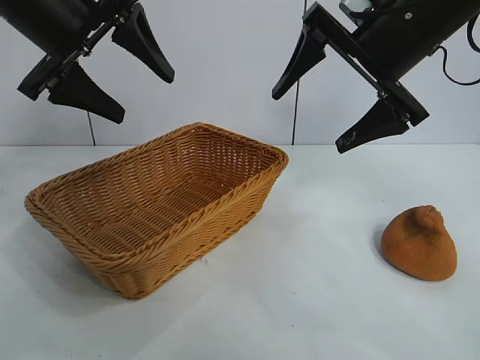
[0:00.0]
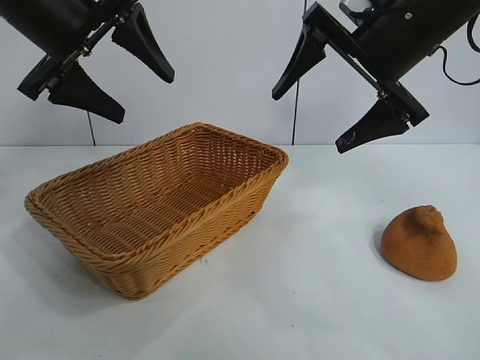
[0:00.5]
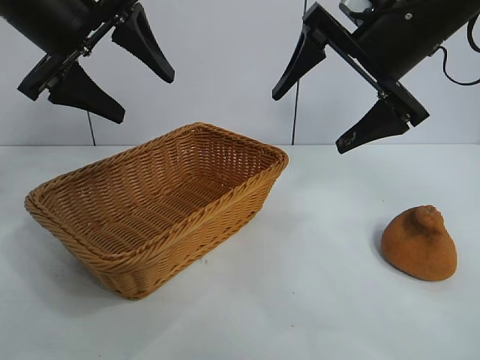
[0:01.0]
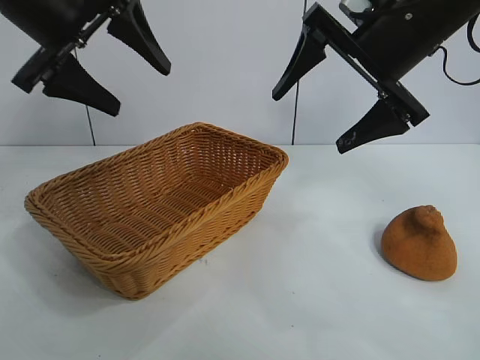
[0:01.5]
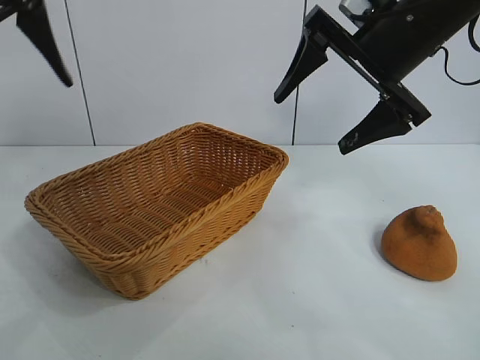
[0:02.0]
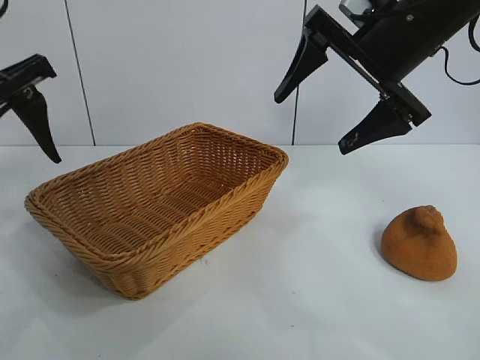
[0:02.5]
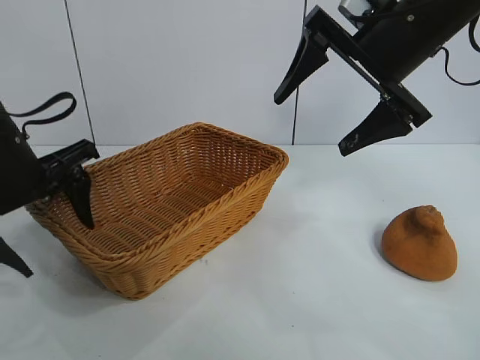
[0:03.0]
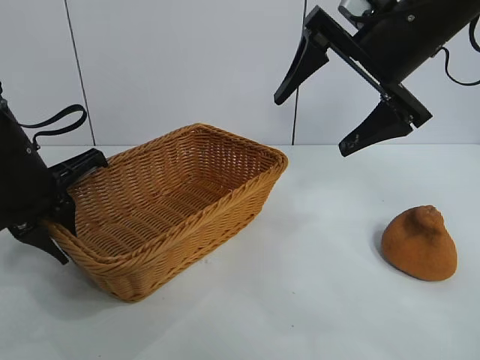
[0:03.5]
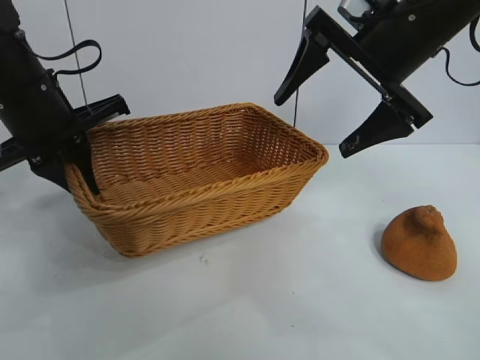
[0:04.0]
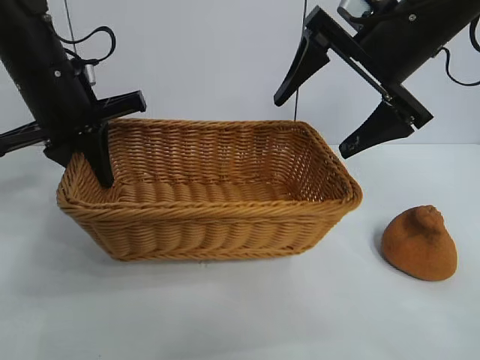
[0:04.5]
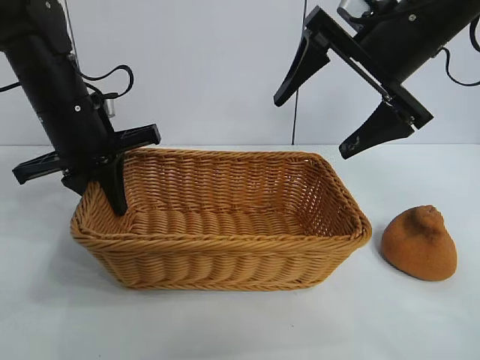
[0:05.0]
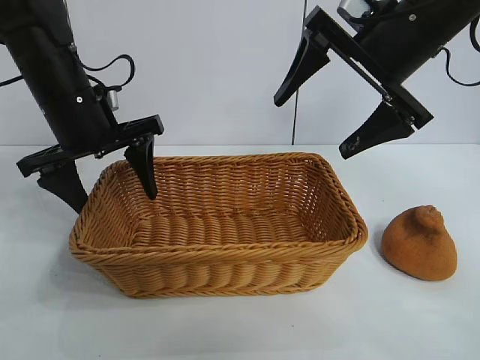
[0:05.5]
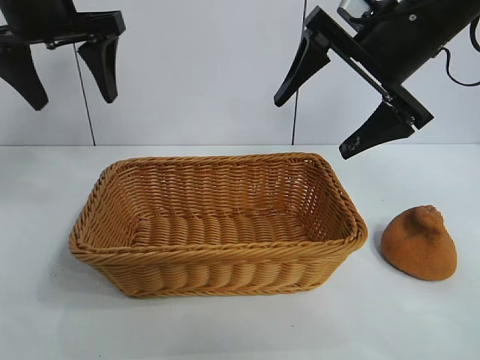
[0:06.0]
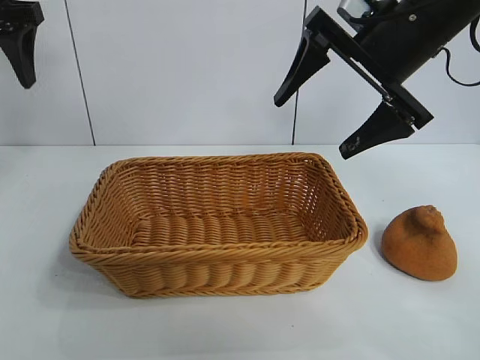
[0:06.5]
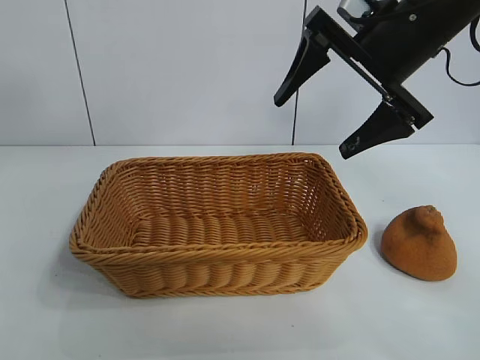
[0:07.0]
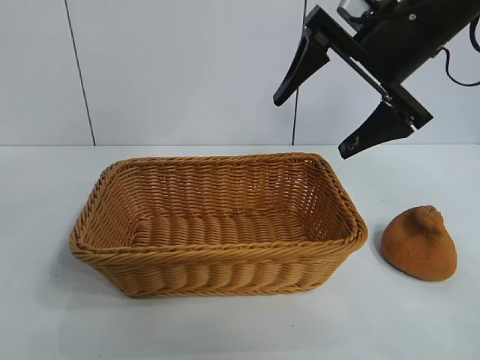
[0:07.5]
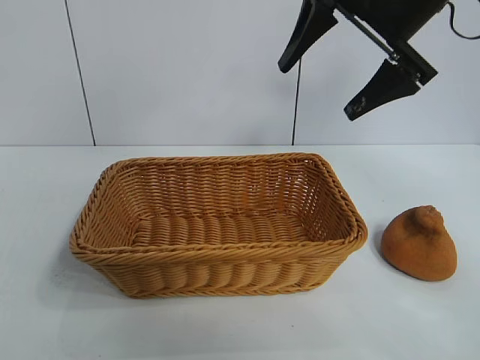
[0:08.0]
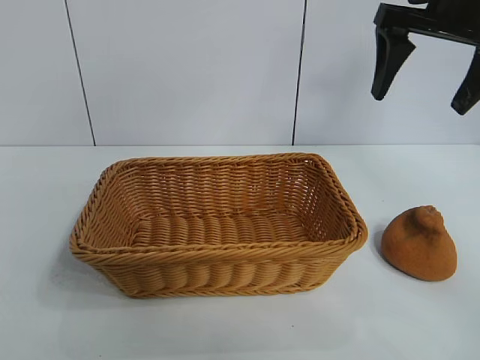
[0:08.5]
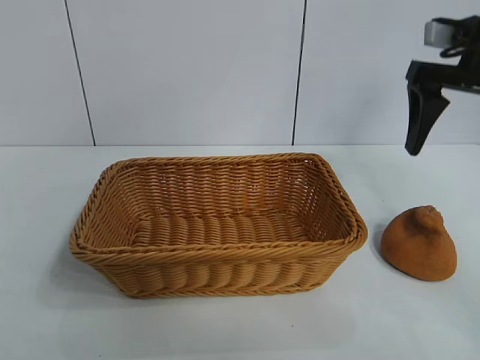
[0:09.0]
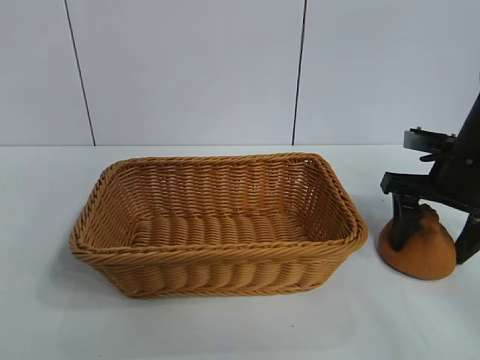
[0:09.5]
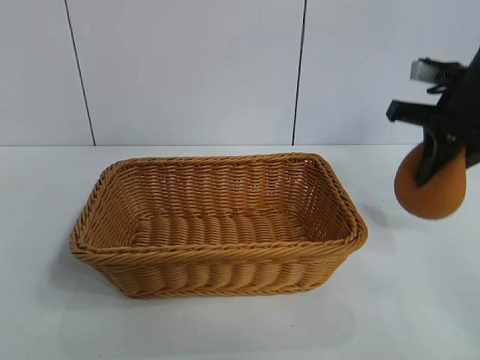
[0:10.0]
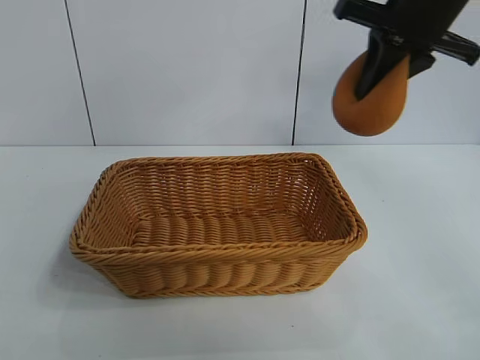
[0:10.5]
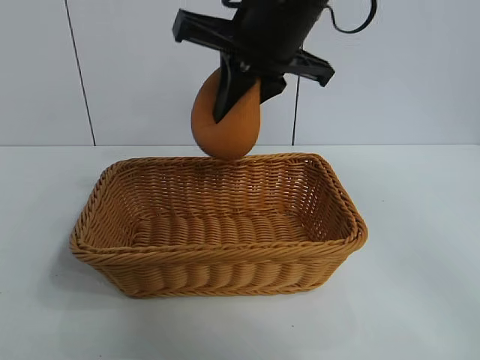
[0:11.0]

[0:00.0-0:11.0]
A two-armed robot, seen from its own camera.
Task of the whole recording: pick up the orange and put it into the basket.
Step, 0:01.0 to 0:03.5: Grasp the basket with left gripper.
Step, 0:04.0 to 0:05.0: Place the basket in the center of view with left gripper.
Step, 0:05.5 to 0:09.5: Grasp the orange with right gripper.
